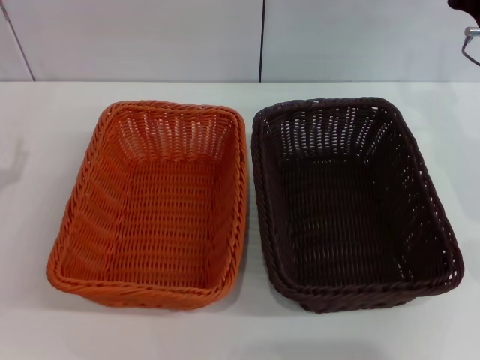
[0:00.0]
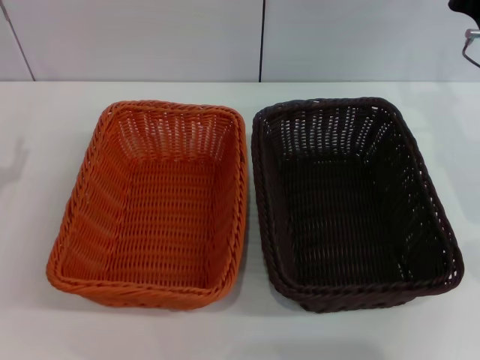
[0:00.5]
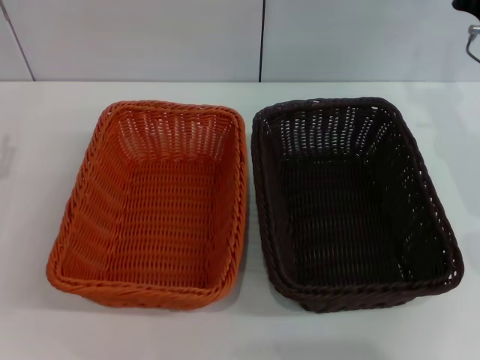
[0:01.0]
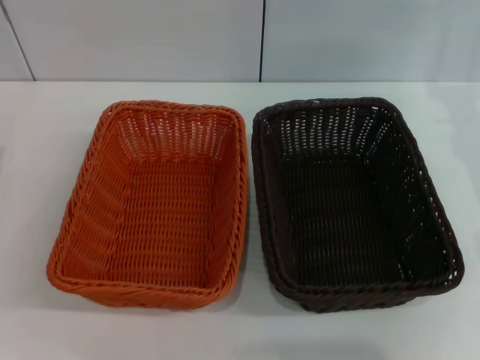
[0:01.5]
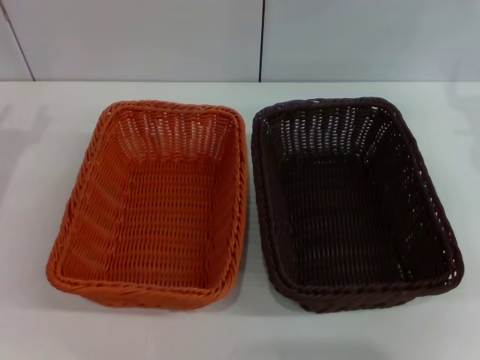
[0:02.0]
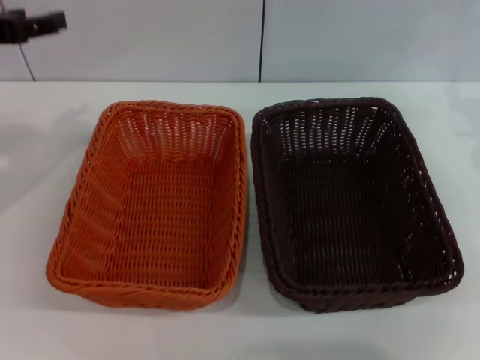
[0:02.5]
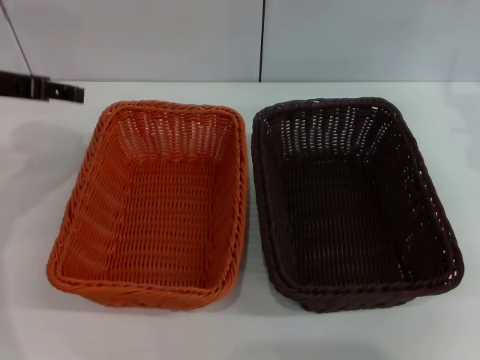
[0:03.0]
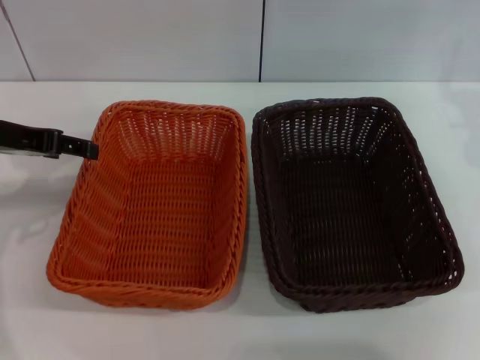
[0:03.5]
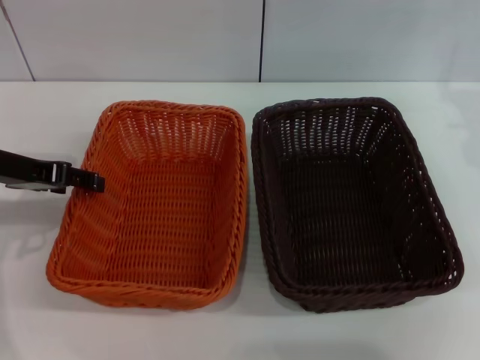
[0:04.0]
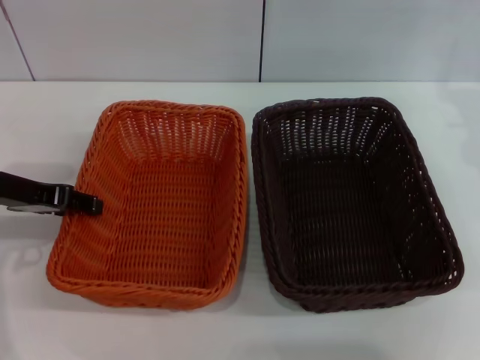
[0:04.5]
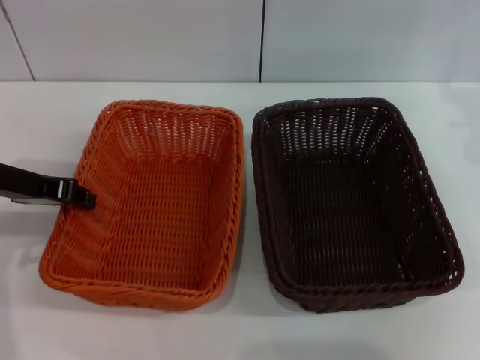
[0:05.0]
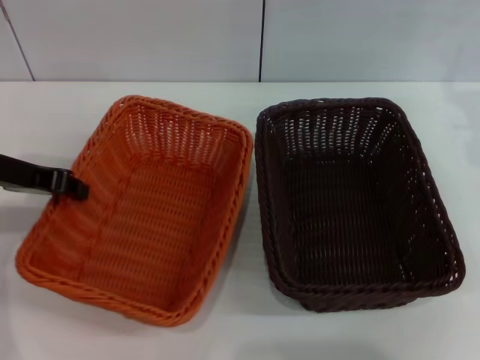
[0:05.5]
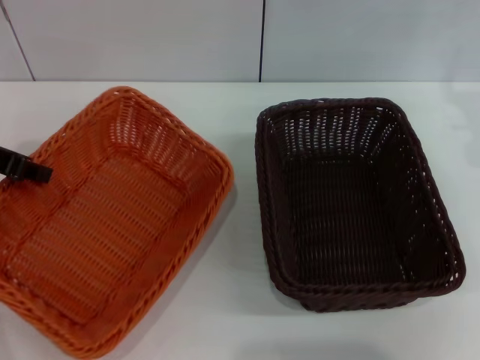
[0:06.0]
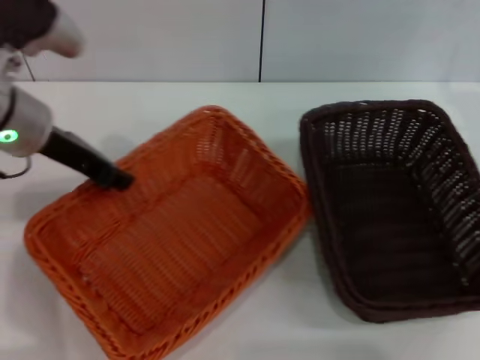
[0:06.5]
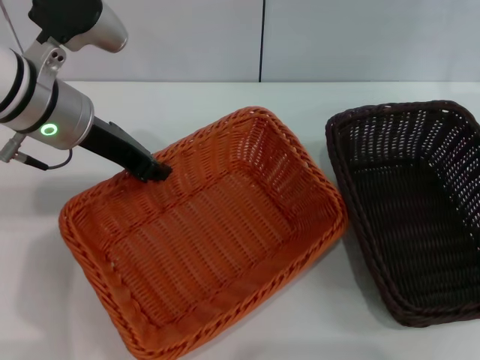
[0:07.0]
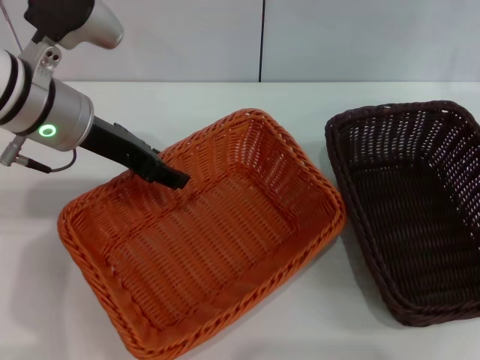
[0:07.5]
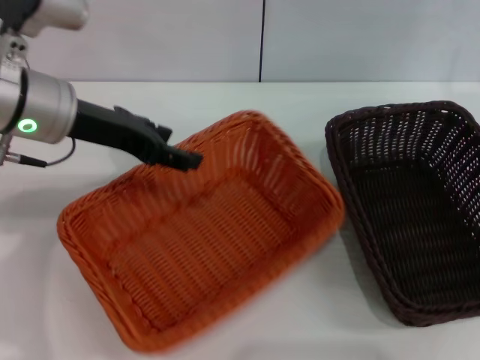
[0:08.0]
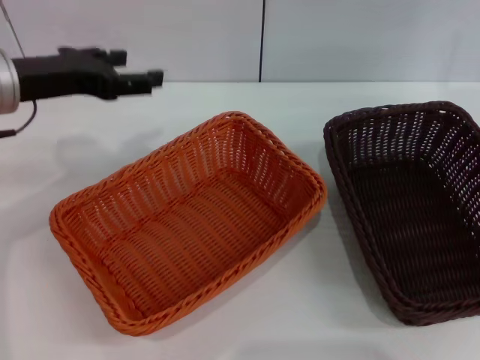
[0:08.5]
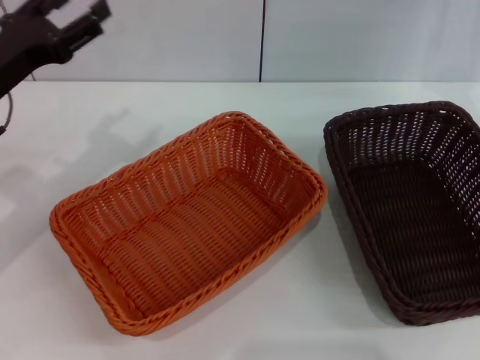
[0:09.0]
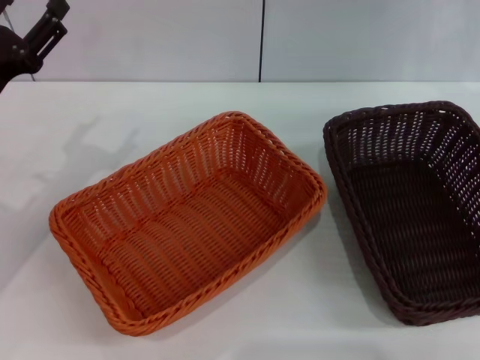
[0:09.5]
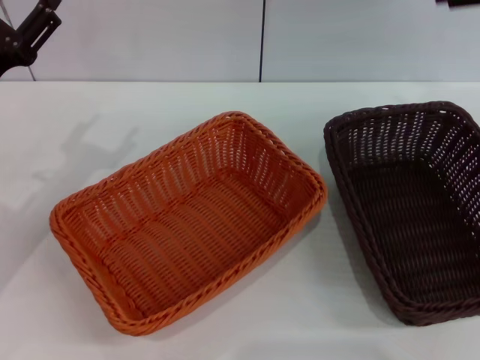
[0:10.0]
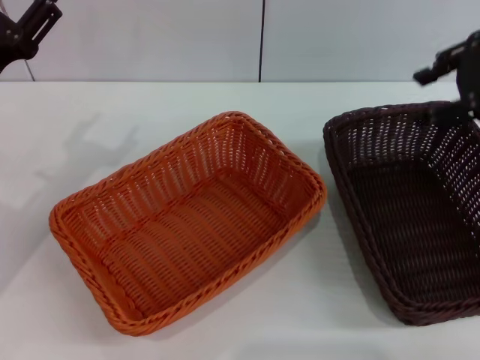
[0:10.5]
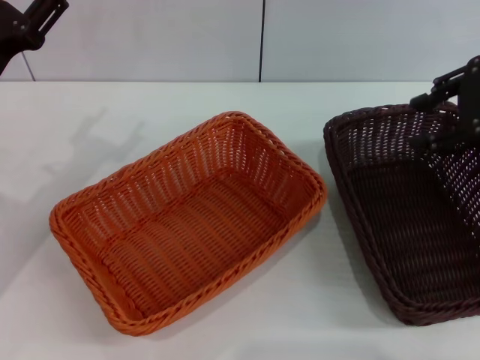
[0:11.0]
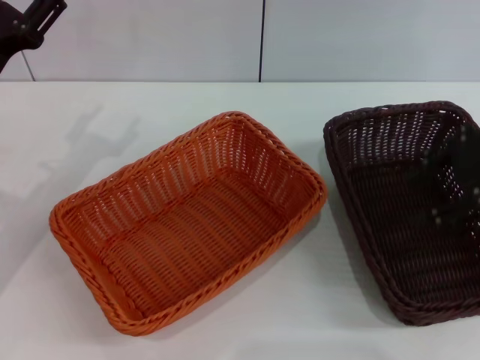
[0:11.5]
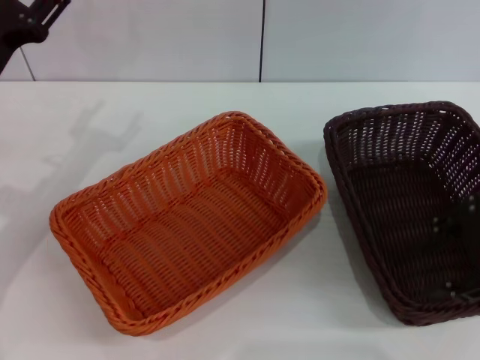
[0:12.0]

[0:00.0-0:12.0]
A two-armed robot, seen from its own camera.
Step, 0:00.0 to 0:05.5: Pick up the light basket with the left gripper.
Step, 0:06.0 to 0:08.0: Place the light basket in the center of view with the left gripper.
0:02.0 to 0:04.0: The left gripper is displaced to the right by approximately 5 cm, and moves about 10 cm upward and comes back.
0:04.0 to 0:06.0: The left gripper shifts some 5 cm upward, and closes up.
0:06.0 to 0:08.0: The left gripper heads to the right, covering some 10 cm, and opens.
0:08.0 to 0:10.0: The right gripper goes approximately 15 cm upward, while the left gripper is displaced to the left and downward by approximately 10 cm.

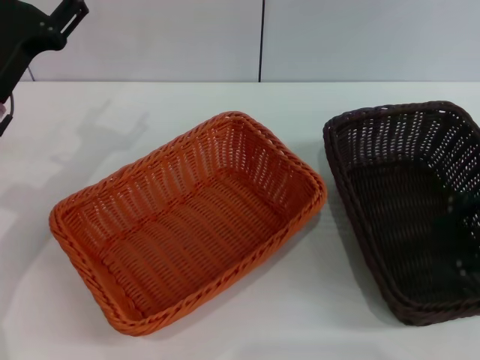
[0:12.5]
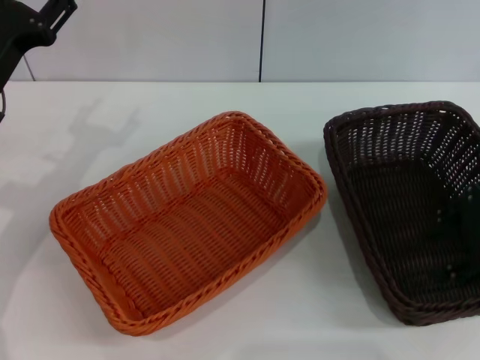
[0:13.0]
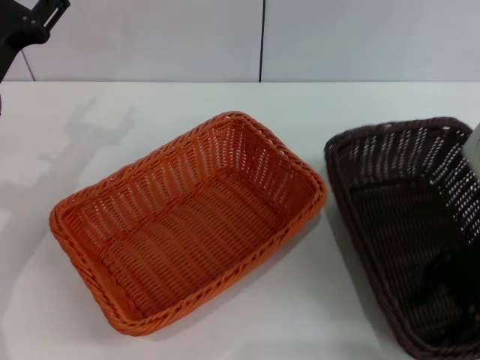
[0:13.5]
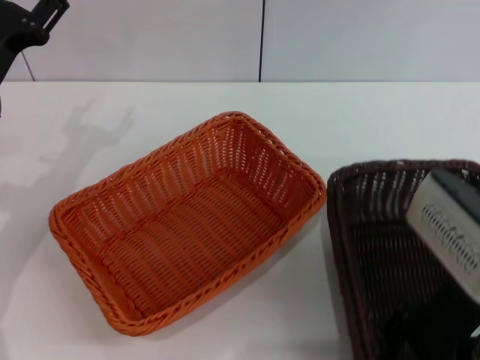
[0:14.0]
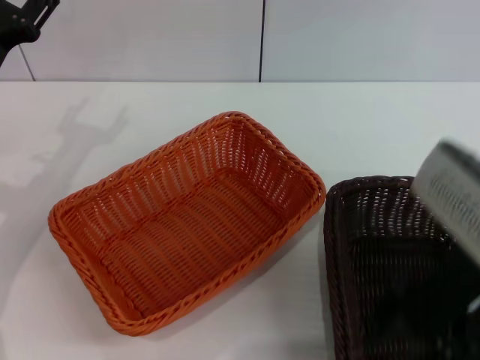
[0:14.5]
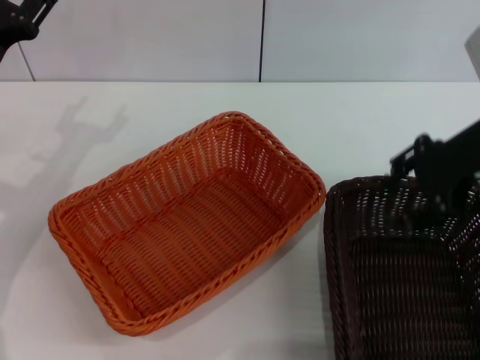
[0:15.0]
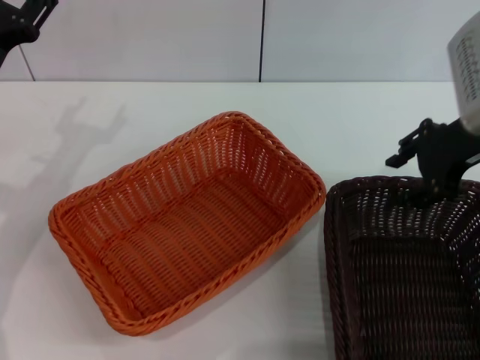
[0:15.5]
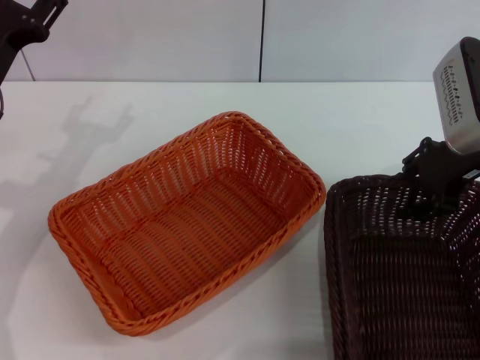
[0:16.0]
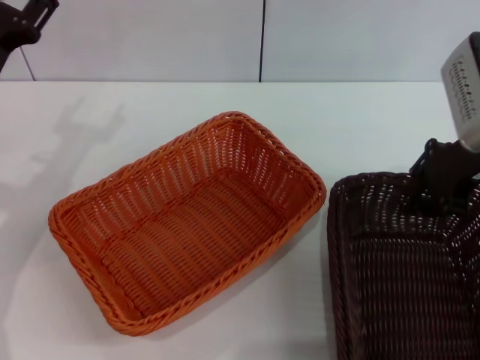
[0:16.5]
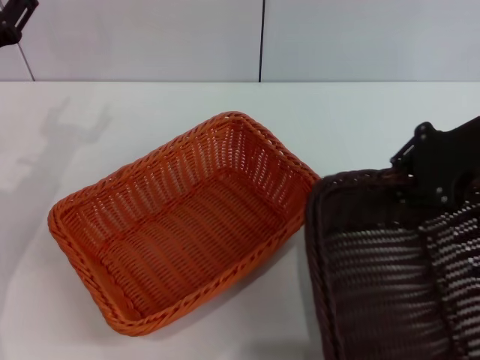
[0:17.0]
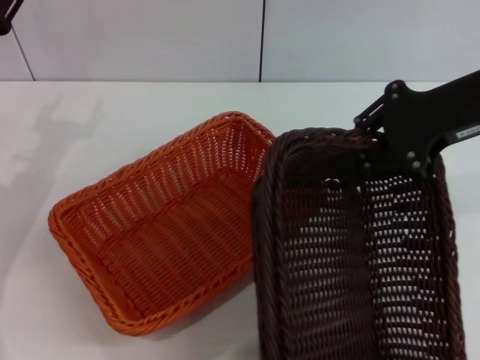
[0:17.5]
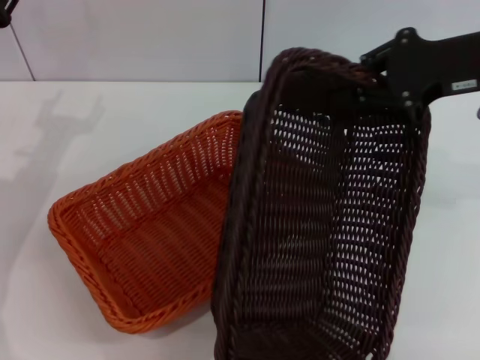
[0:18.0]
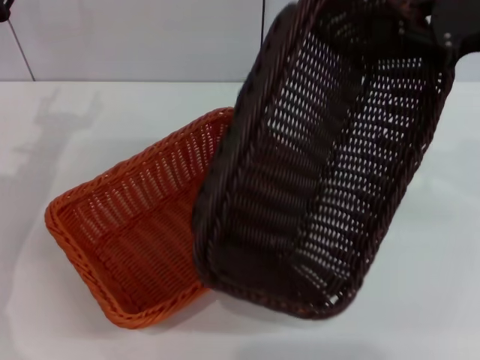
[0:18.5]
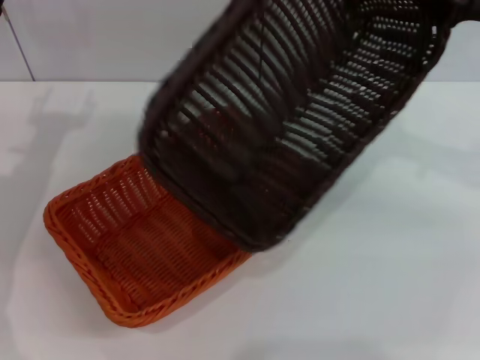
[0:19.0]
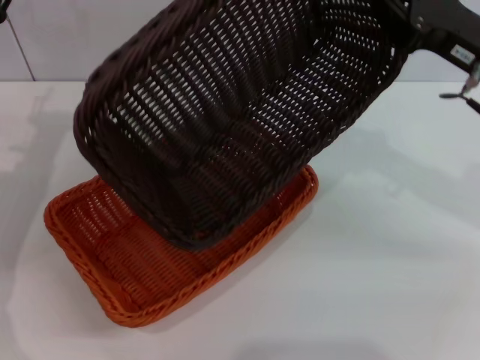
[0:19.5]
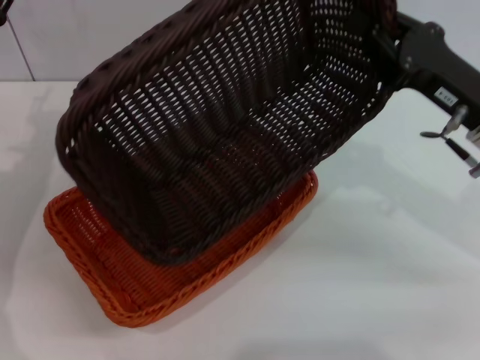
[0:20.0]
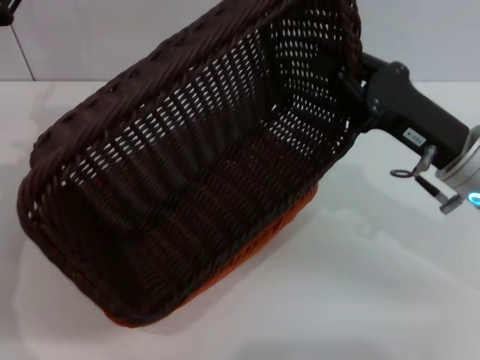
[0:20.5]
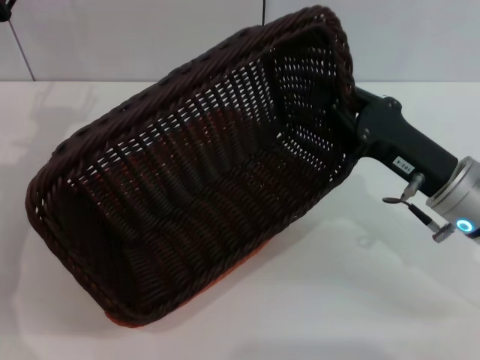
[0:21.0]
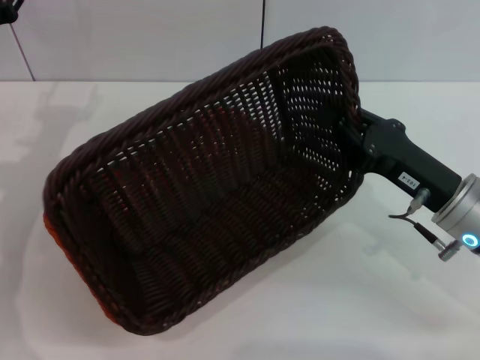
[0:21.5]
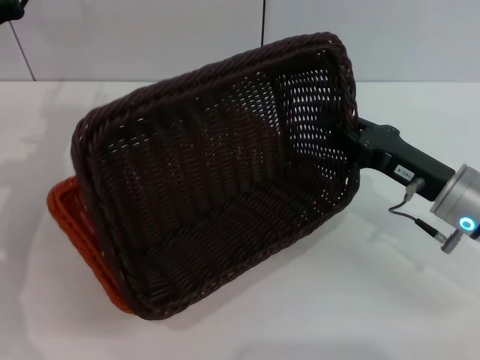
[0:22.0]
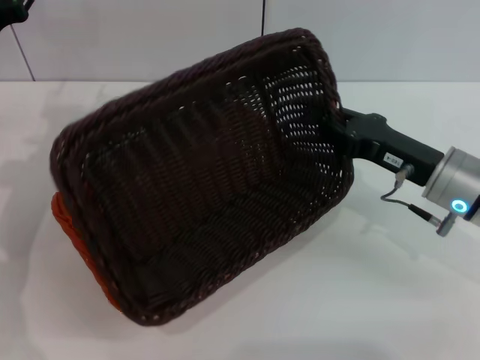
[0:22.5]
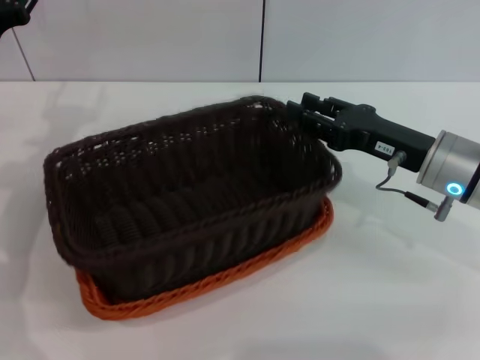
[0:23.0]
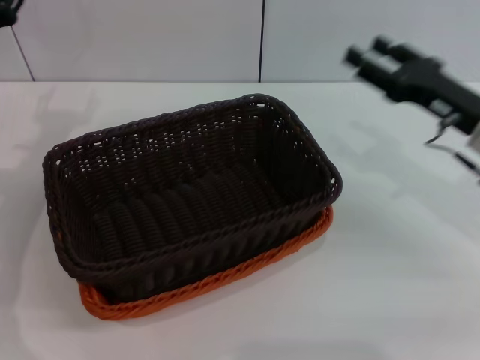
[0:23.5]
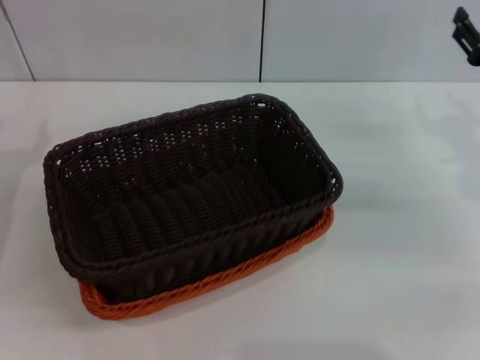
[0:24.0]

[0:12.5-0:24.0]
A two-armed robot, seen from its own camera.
Step, 0:12.5 to 0:17.0: Pick up the dark basket with the right gripper.
Step, 0:17.5 to 0:23.0: Place the dark basket on the light basket with the right gripper.
0:12.5 to 0:14.5: The right gripper is displaced to the left by roughly 10 cm.
0:14.5 to 0:16.5: The right gripper travels forward by some 10 cm, and closes.
0:16.5 to 0:18.5: The right gripper goes about 5 cm upward.
0:18.5 to 0:20.0: The right gripper goes some 10 cm downward and to the left.
0:20.0 to 0:22.0: The right gripper goes some 5 cm downward.
0:22.0 to 0:24.0: The right gripper is displaced to the right and forward by some 10 cm, and opens its fingers. The left gripper is displaced backward by roughly 10 cm.

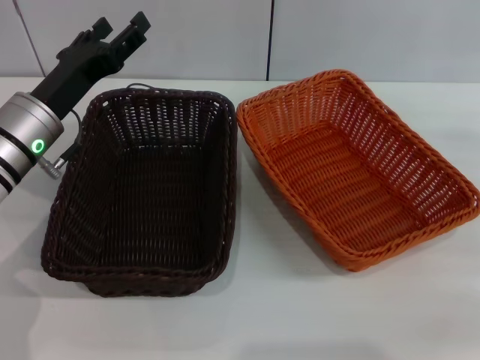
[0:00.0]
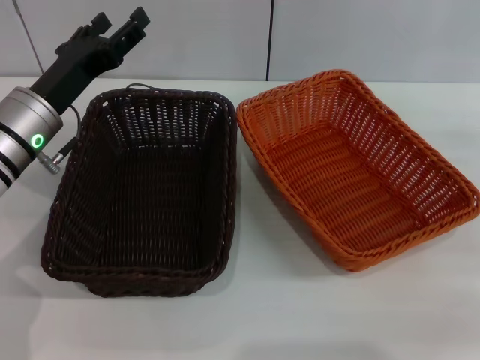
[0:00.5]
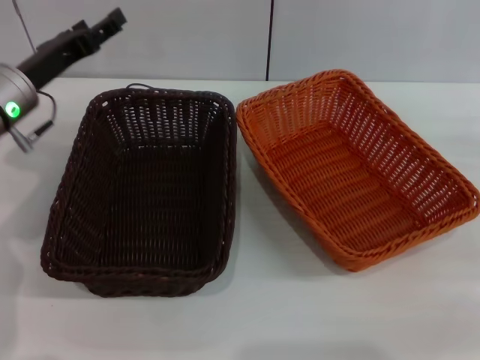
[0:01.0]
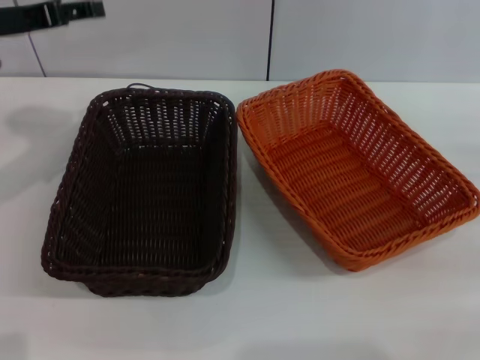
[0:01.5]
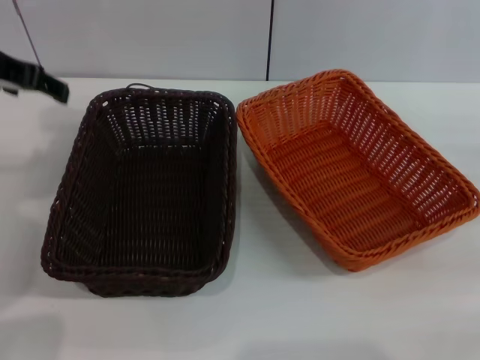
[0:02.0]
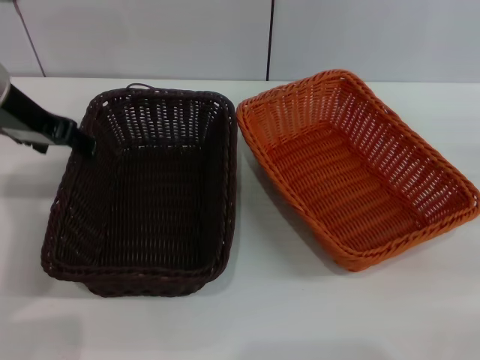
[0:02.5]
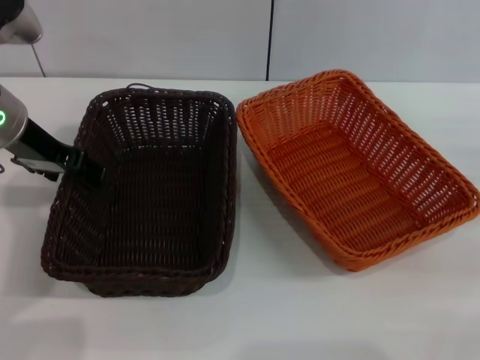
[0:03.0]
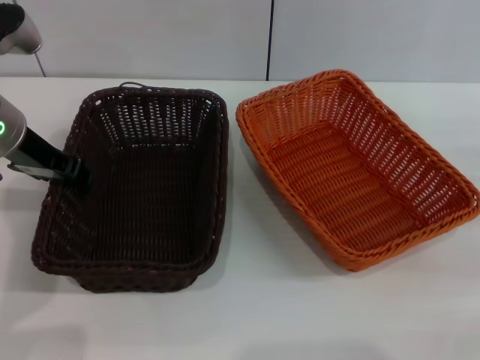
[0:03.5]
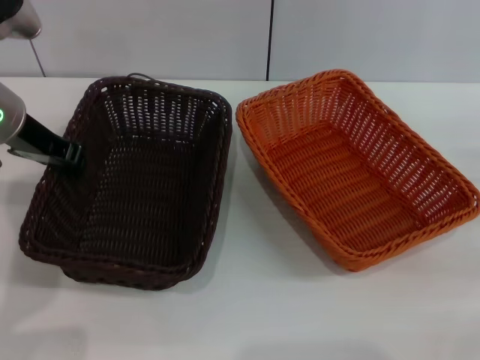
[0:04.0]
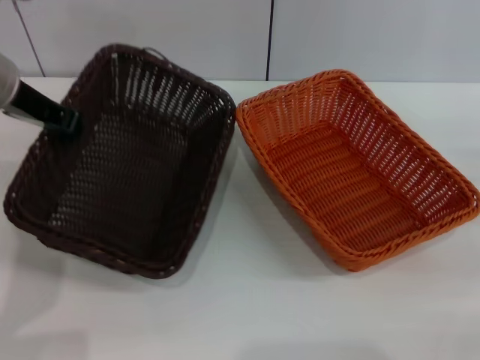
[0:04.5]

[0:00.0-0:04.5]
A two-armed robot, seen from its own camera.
0:00.0 to 0:02.0: The left gripper shifts some 15 cm upward.
0:02.0 to 0:04.5: The left gripper closes.
